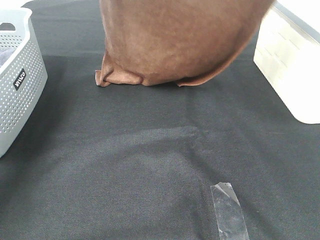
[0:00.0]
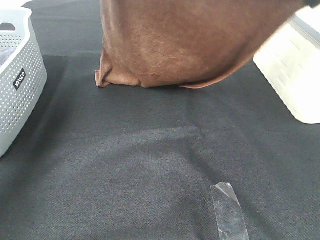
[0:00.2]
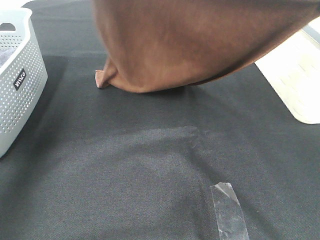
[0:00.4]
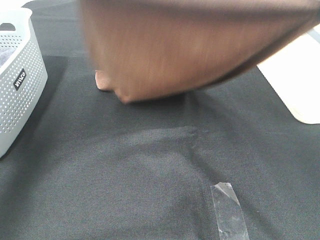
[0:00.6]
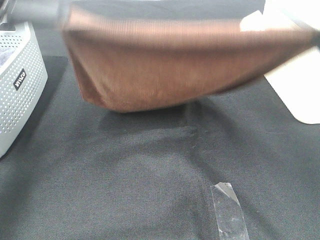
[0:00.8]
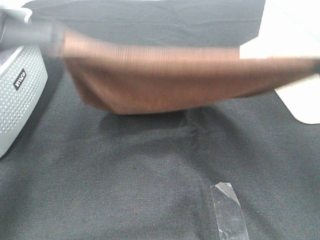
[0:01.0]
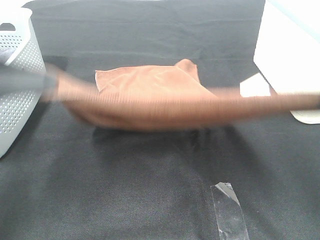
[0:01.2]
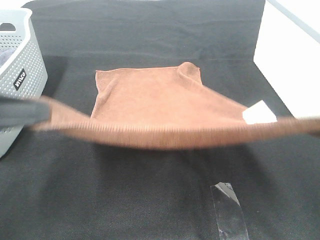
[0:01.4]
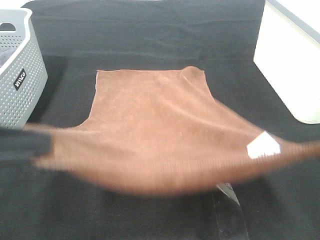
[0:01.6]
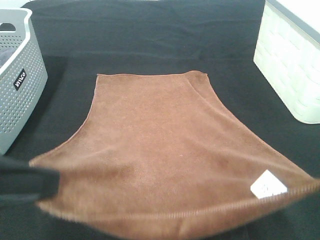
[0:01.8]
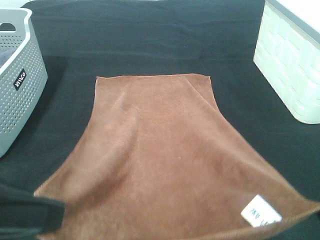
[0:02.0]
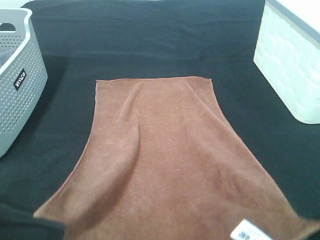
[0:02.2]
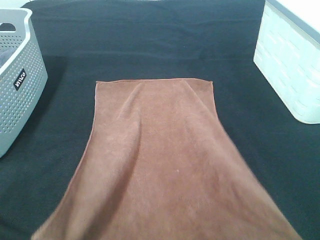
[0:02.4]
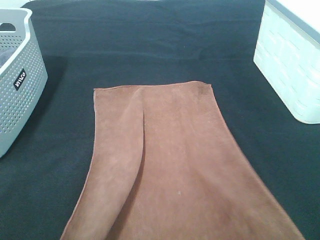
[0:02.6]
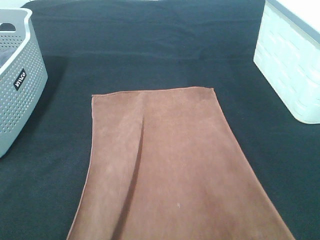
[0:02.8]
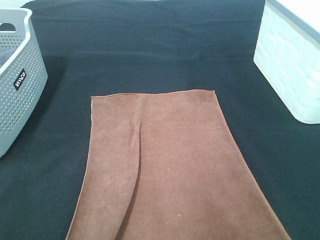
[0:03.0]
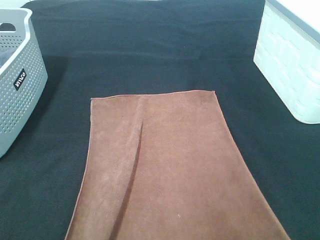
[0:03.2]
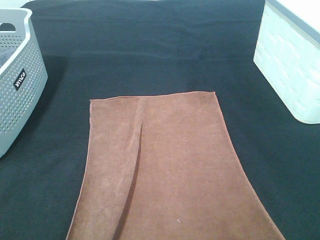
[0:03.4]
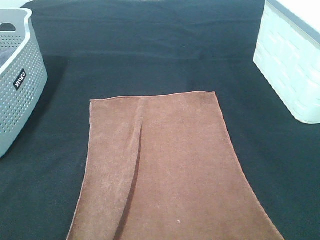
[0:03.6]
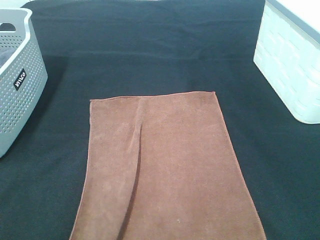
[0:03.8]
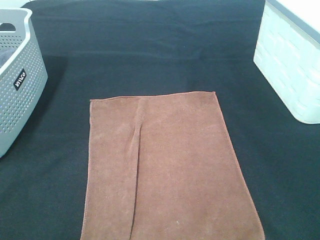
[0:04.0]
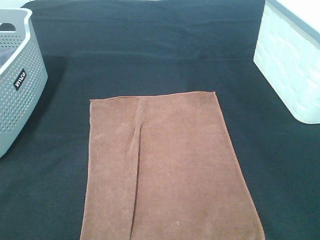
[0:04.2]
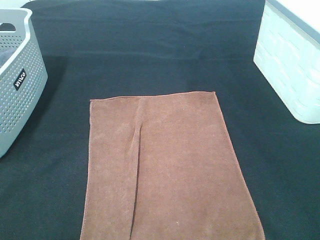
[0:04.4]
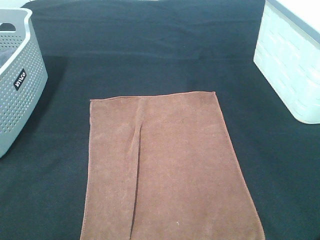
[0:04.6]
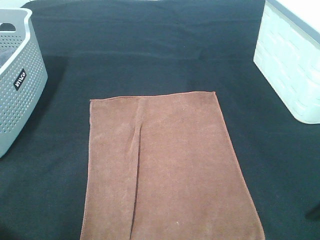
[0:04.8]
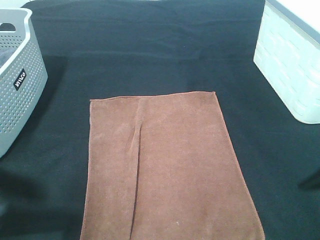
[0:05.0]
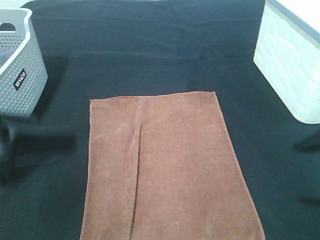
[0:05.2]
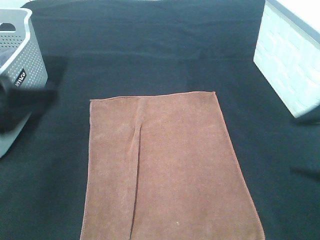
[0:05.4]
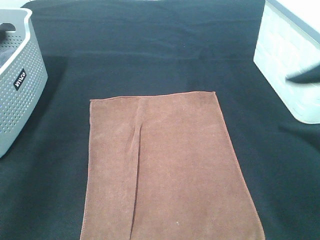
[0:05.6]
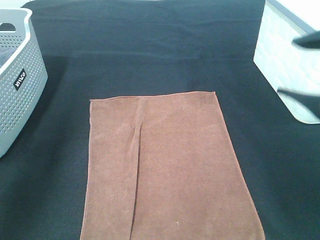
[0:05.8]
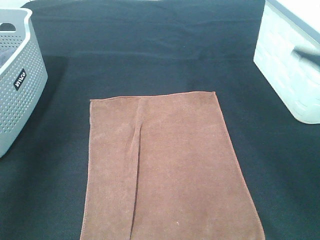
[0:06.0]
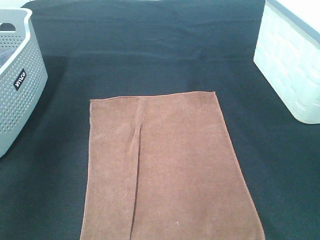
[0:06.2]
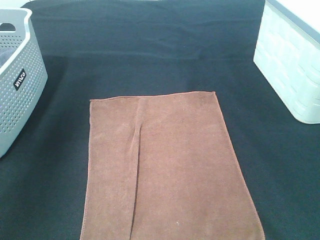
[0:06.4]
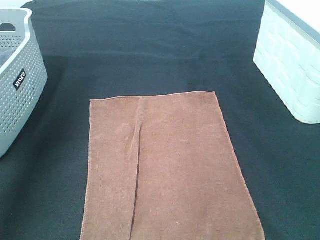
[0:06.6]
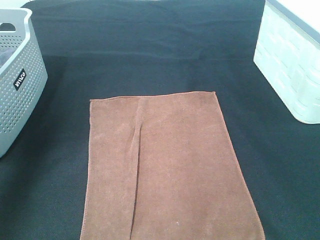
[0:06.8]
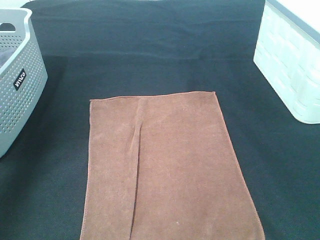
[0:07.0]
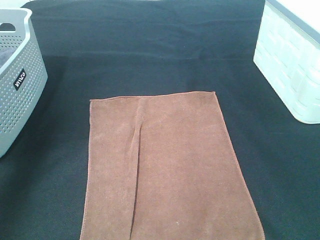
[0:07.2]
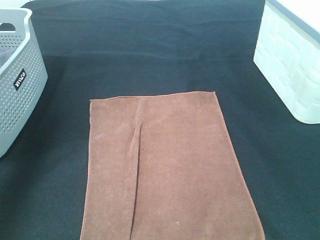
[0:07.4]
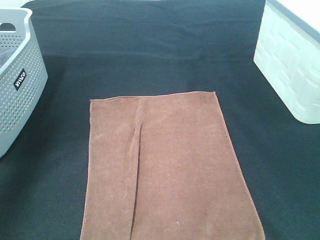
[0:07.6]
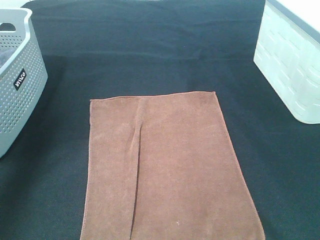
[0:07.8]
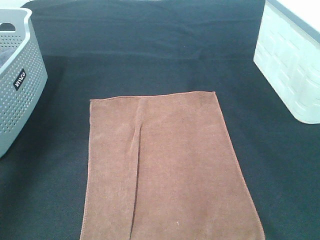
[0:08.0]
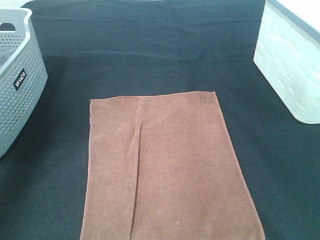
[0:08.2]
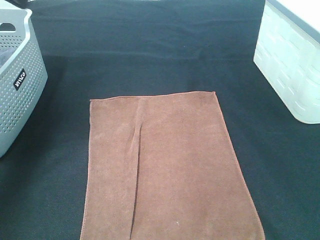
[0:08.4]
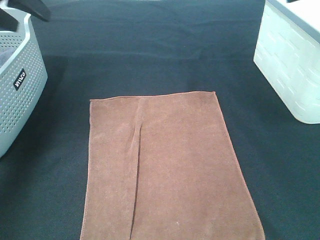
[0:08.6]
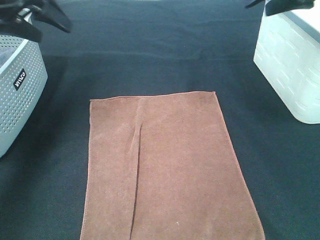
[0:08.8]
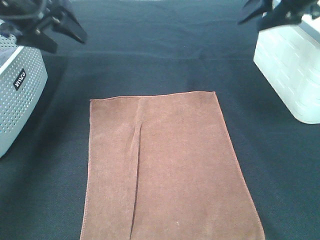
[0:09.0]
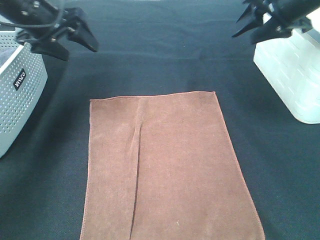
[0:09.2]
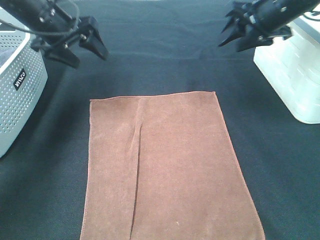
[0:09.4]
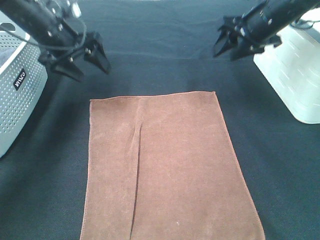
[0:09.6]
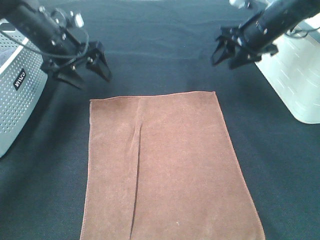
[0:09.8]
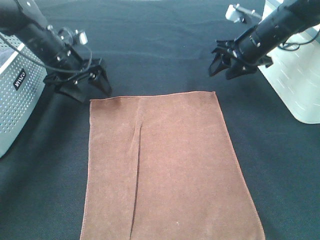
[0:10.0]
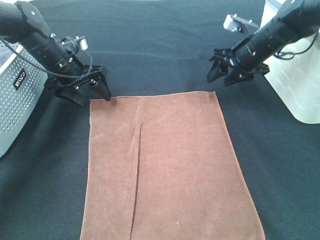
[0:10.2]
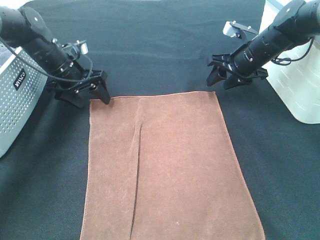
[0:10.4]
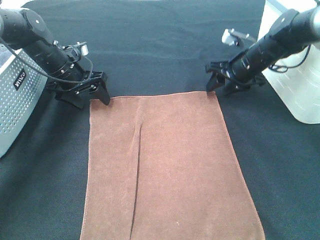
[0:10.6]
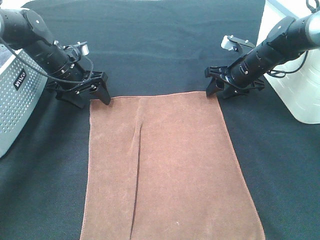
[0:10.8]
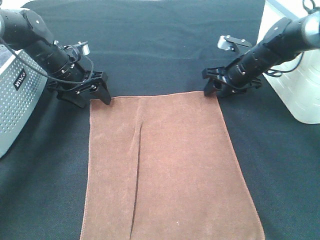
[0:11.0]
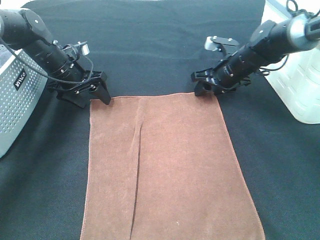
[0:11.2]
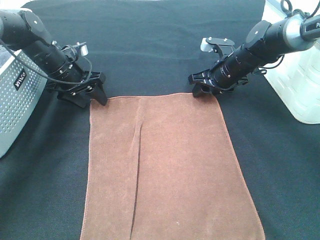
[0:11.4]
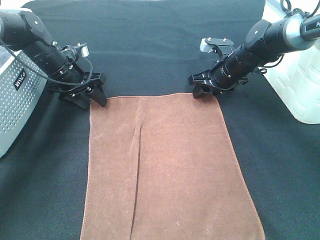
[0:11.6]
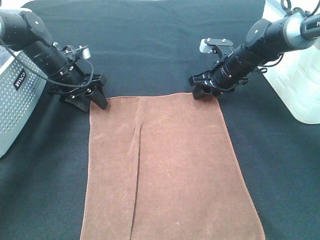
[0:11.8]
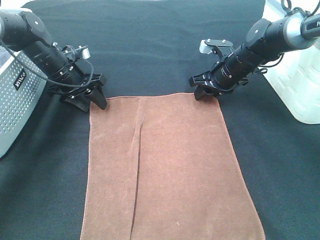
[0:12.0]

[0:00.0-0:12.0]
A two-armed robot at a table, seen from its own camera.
Task of the whole recording: Remove the towel and place it.
Step, 0:00.0 to 0:10.2: Left hand:adjust the brown towel.
Step, 0:00.0 to 0:10.2: Right hand:adjust the brown towel.
0:00.0 to 0:01.6: The right gripper shifts approximately 25 cm backward and downward, while the left gripper travels backward by approximately 35 cm.
0:01.6 to 0:03.0: The two grippers go some 10 cm backward and downward.
0:03.0 to 0:04.4: The right gripper opens up; the left gripper opens up.
0:04.4 to 0:06.0: The left gripper goes roughly 25 cm upward, forward and to the left.
0:06.0 to 0:07.6: The right gripper goes roughly 20 cm upward.
0:07.6 to 0:09.0: The left gripper is displaced downward and forward by roughly 20 cm. The right gripper goes some 30 cm downward and forward.
0:09.0 to 0:10.4: The two grippers go some 15 cm downward and forward.
0:10.4 to 0:12.0: The right gripper changes place by some 5 cm.

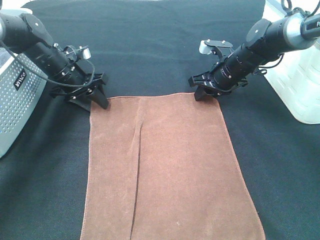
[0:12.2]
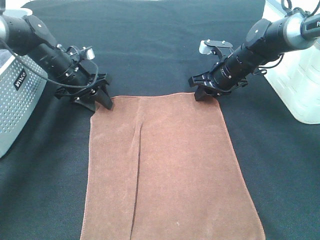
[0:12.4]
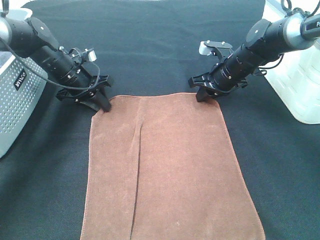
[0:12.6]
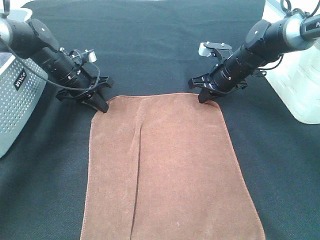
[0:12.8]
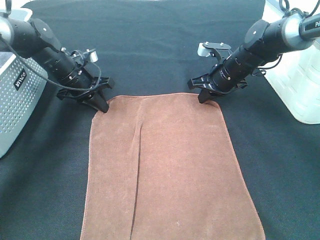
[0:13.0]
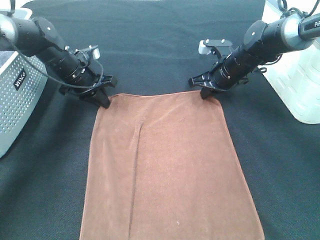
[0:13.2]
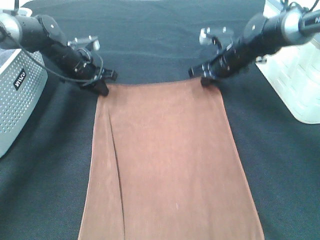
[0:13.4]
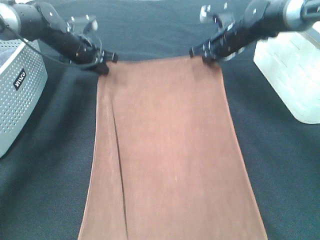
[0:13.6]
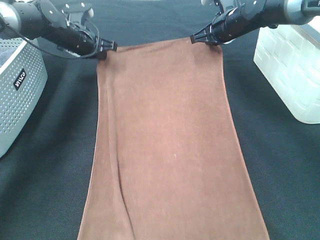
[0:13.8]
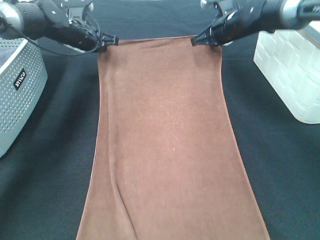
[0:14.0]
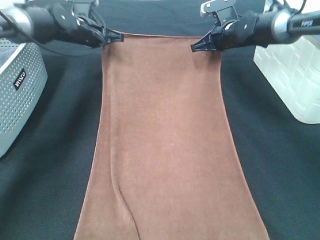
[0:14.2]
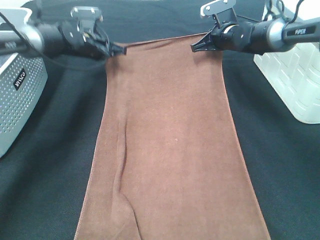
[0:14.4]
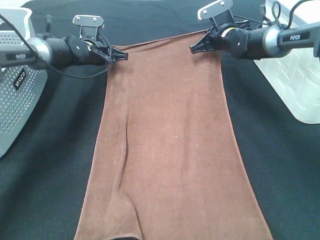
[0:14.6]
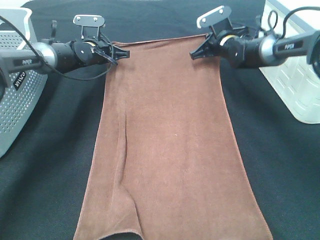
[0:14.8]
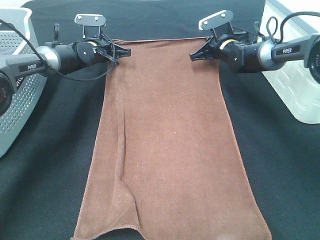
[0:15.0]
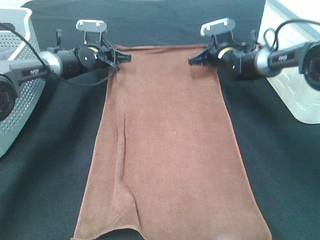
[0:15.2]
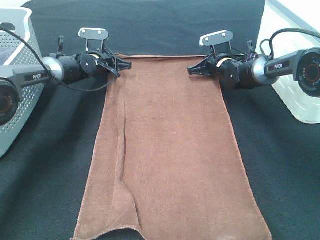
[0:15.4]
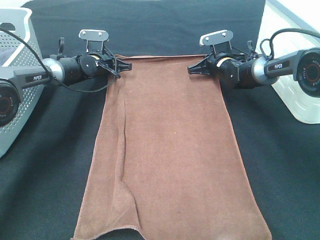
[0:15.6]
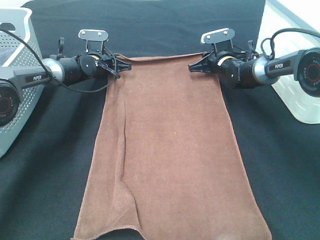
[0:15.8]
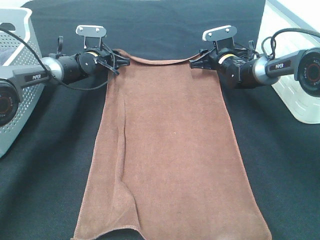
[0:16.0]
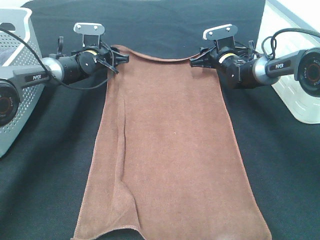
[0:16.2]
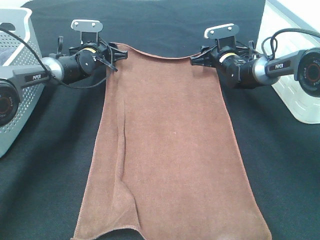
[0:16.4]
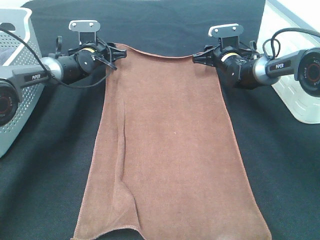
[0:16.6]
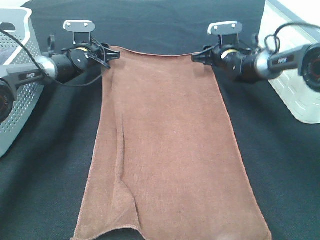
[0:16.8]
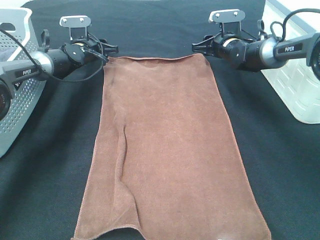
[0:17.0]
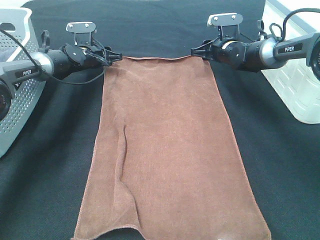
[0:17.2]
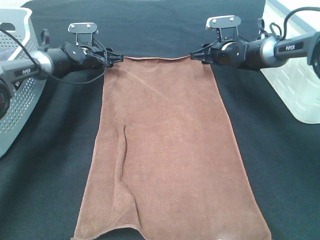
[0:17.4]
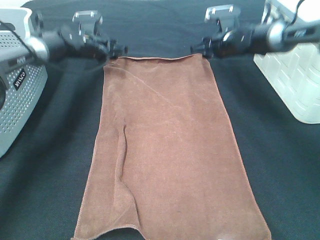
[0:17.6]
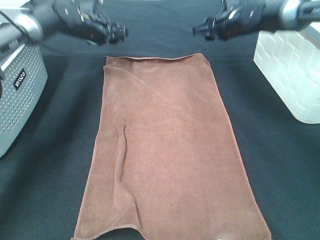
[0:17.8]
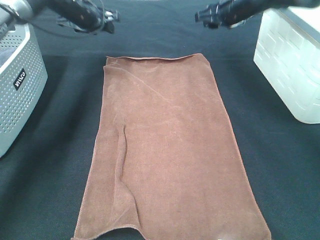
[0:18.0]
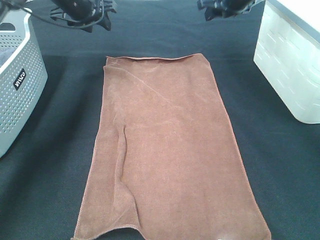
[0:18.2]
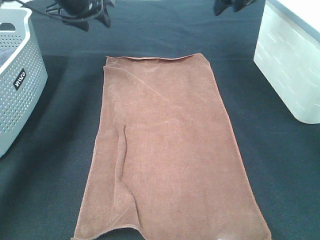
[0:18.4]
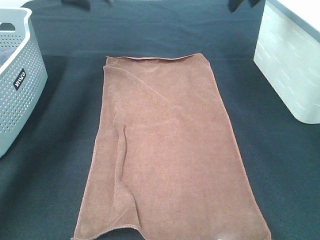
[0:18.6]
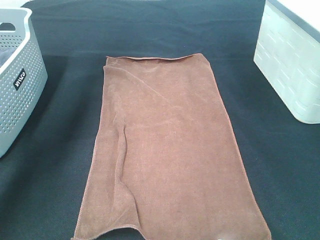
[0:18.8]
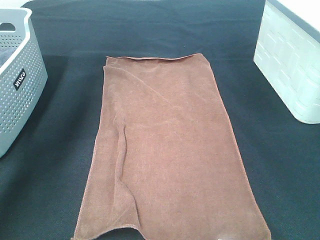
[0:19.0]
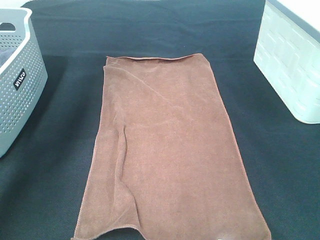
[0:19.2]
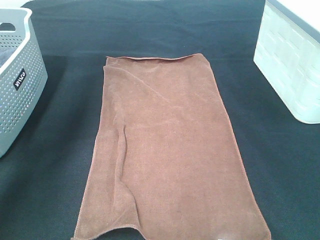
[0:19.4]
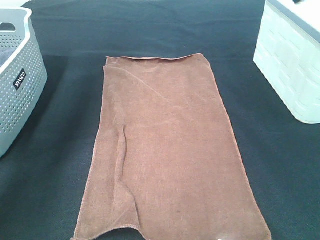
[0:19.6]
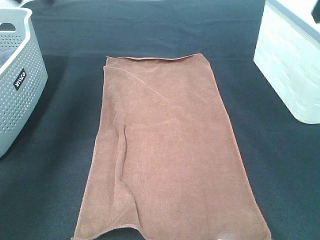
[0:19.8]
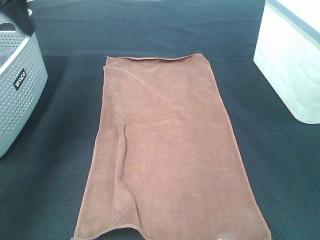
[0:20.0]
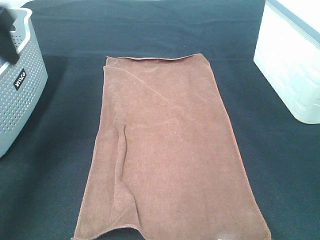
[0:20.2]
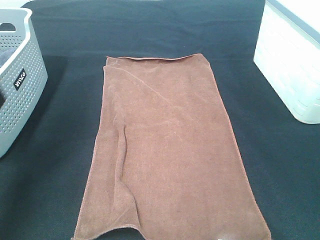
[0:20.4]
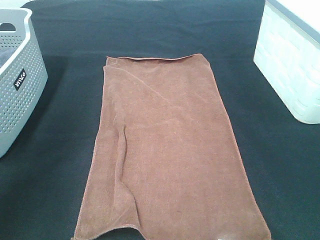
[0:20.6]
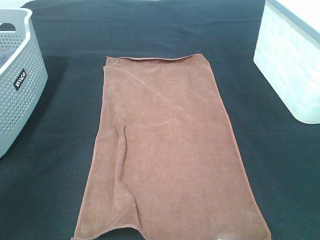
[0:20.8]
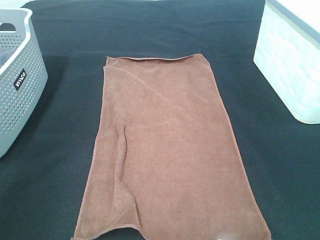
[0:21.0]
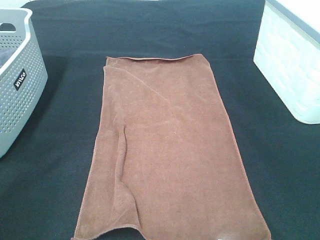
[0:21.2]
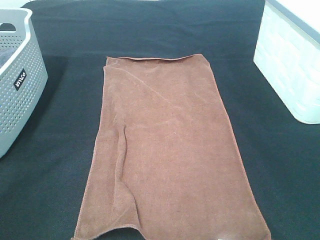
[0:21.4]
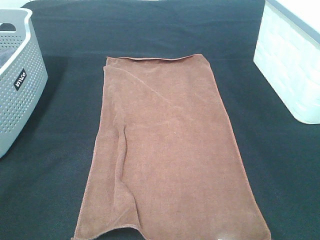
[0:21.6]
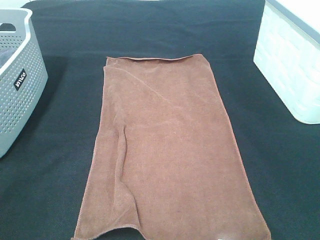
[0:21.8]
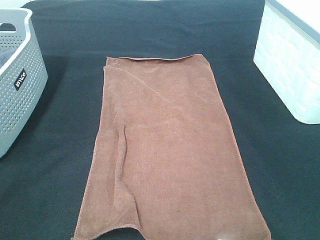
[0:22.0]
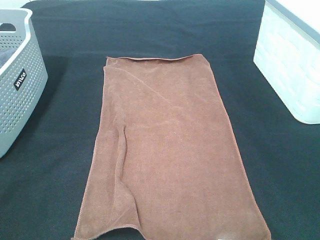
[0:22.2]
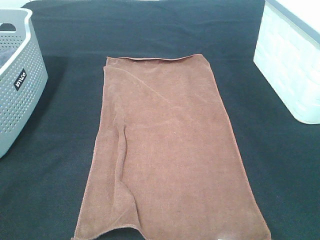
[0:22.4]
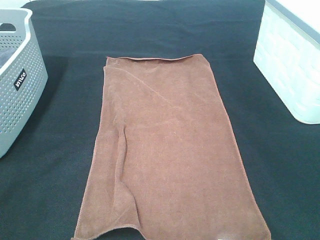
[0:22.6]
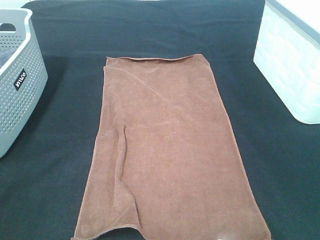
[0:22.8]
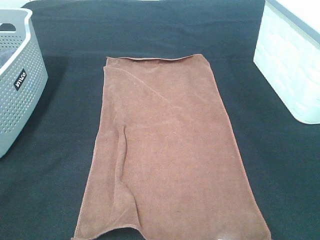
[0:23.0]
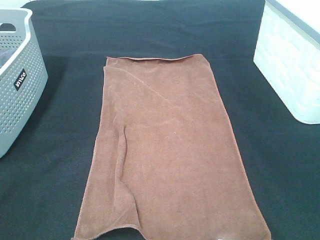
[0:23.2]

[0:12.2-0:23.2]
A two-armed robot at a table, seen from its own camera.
Task of the whole recording: Remove the towel and place it.
0:12.2 to 0:13.8: The left gripper is displaced forward and upward by approximately 10 cm, and closes its fingers; the right gripper shifts some 10 cm upward and forward, and closes up.
0:13.8 to 0:15.4: Both grippers travel together downward, some 10 cm.
0:15.4 to 0:17.0: The left gripper opens up. The right gripper moves roughly 5 cm, and opens its fingers.
0:17.0 to 0:18.4: Both grippers move upward, about 20 cm.
0:18.4 to 0:20.0: The left gripper shifts approximately 25 cm backward and upward, while the right gripper travels backward by some 30 cm.
0:20.0 to 0:21.6: The right gripper heads backward and downward, covering roughly 20 cm; the left gripper shifts about 30 cm backward.
